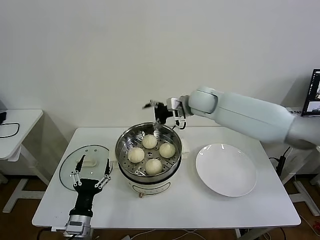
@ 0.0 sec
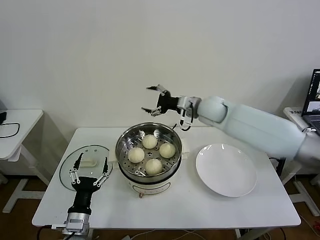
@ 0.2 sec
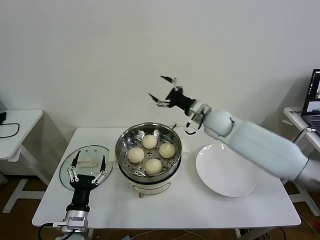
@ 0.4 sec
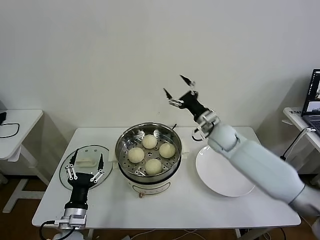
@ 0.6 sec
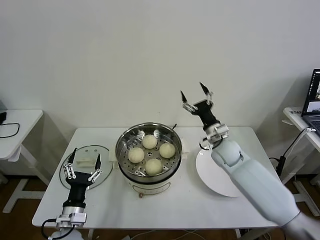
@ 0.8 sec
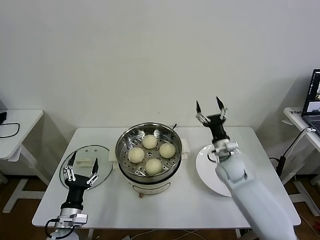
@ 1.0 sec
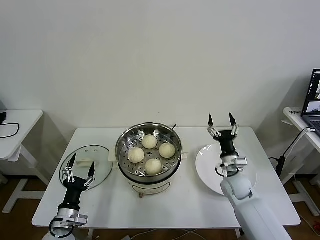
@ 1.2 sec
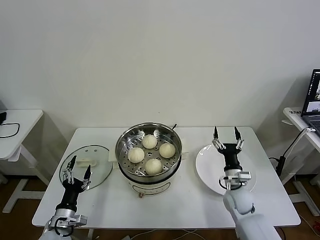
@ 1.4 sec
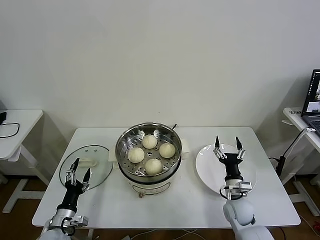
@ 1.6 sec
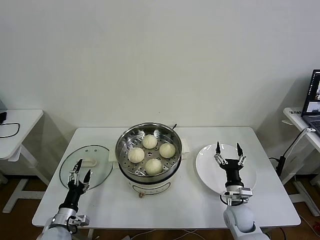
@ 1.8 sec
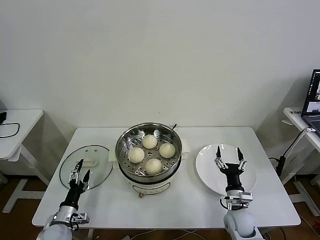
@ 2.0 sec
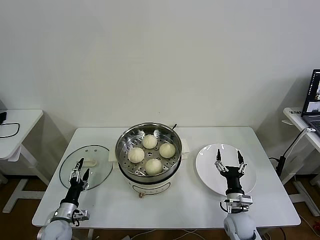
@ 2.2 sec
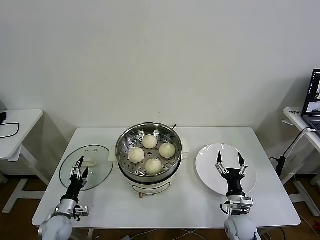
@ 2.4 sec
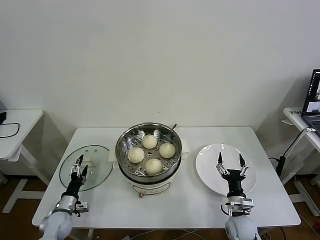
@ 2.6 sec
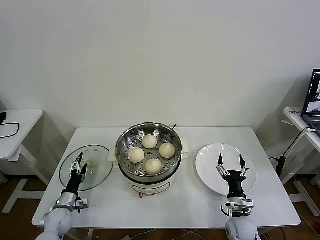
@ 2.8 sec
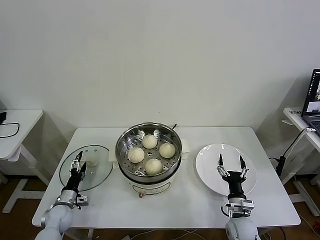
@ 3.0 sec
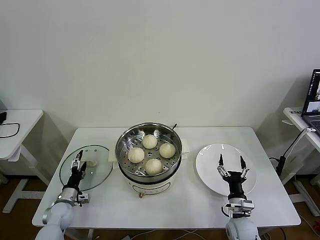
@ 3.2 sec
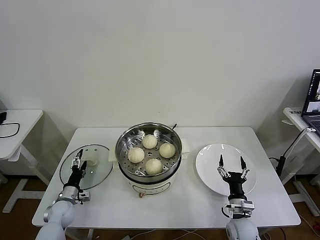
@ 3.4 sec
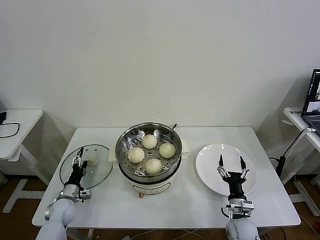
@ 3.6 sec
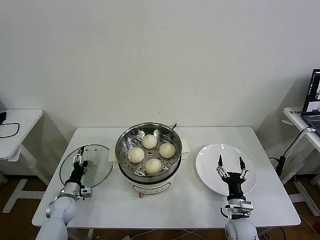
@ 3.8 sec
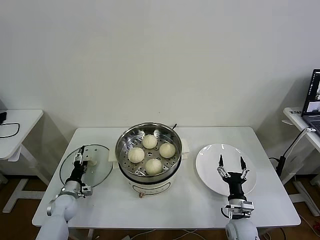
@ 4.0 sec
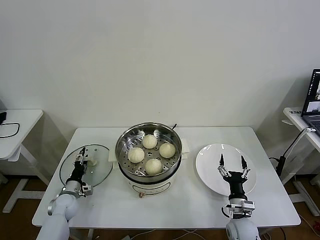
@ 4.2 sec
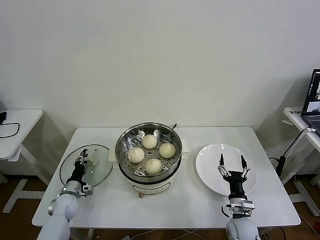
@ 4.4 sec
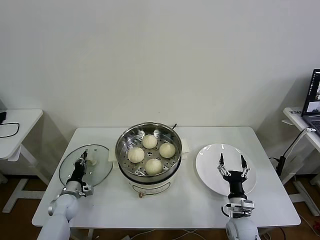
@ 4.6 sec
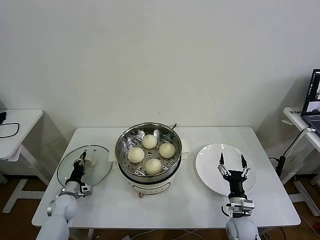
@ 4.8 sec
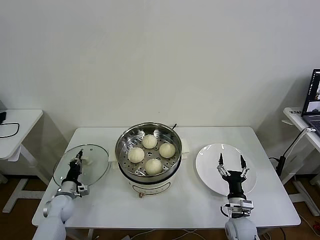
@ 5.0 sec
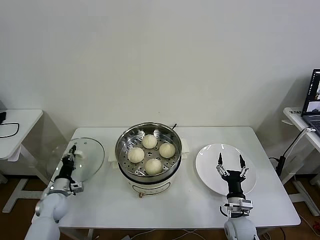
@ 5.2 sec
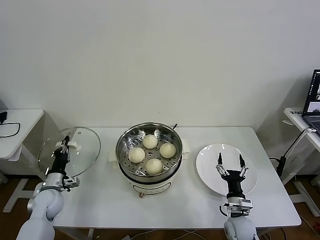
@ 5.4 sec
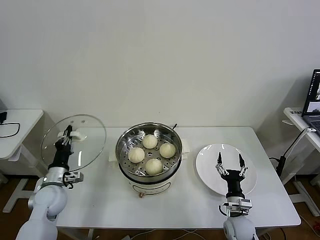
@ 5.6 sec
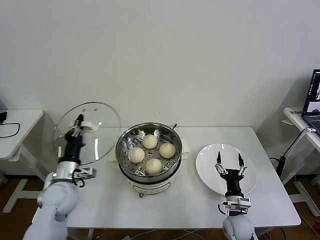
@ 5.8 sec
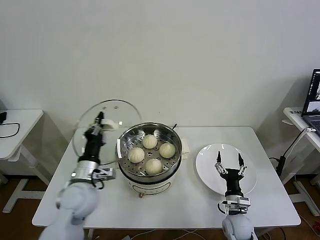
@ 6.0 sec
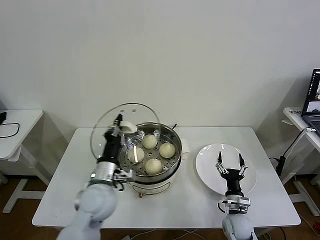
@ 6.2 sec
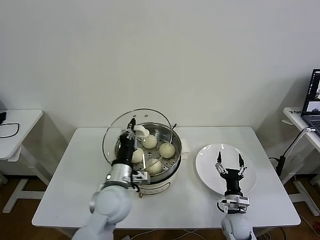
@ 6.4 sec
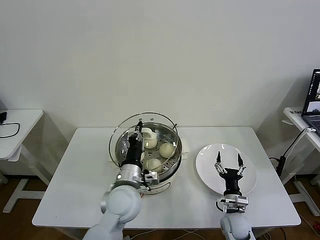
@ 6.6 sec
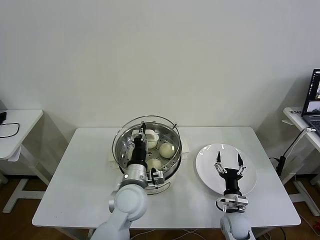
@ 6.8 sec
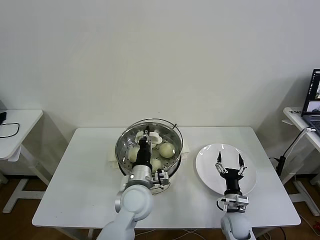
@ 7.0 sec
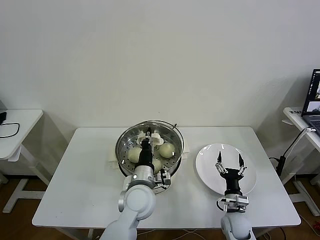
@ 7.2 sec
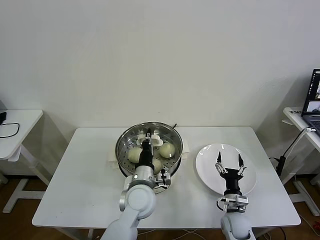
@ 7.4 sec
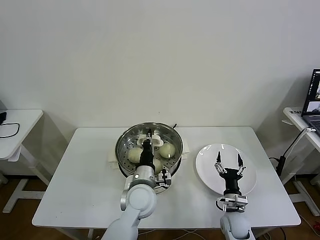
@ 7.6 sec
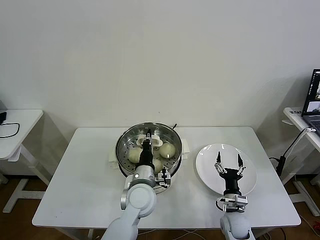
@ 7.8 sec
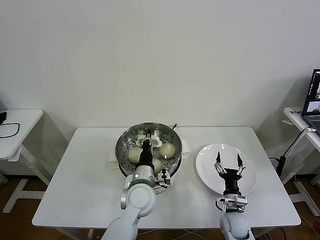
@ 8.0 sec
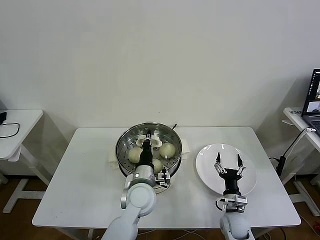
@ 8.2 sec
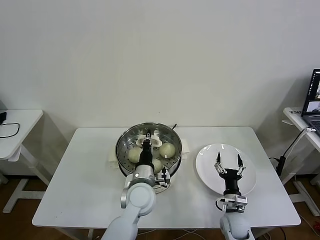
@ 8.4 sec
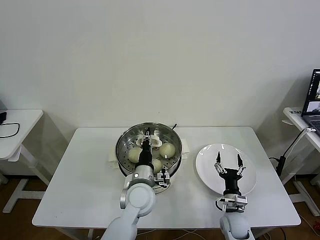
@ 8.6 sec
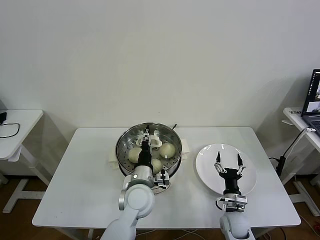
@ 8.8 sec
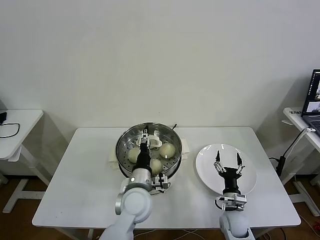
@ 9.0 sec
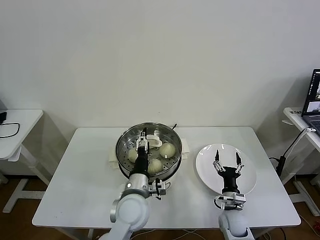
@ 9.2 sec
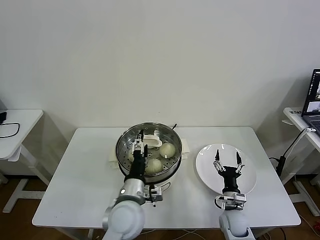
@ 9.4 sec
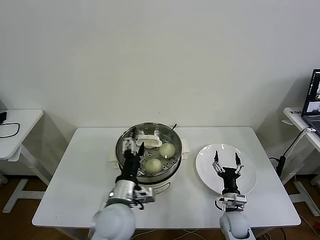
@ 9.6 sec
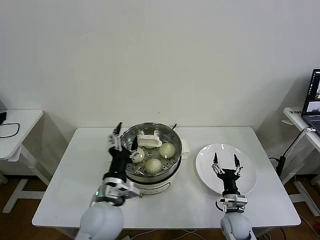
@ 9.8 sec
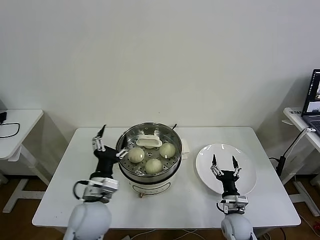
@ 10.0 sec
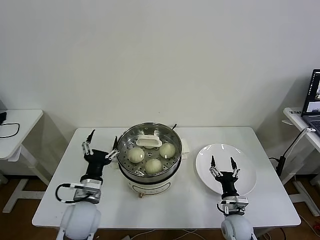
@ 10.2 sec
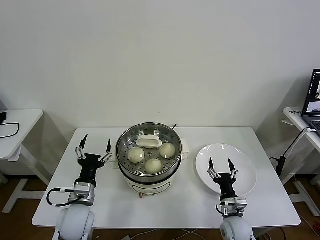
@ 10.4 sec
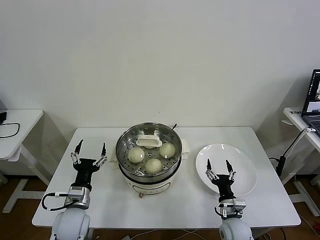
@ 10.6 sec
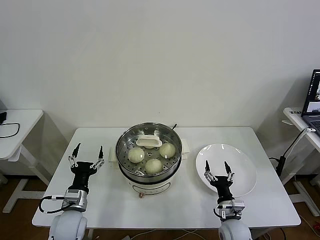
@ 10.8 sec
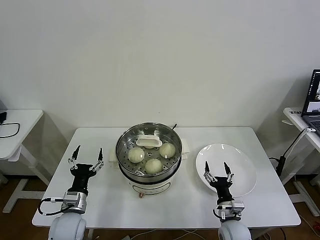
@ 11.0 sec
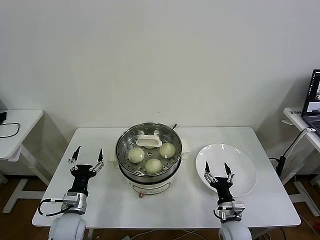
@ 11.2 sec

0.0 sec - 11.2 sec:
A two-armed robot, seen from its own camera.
Task of the whole recording: take steamed baozi put them in steamer then cover it.
Step, 0.0 sec - 5.0 sec: Grasp the pot lid with left gripper.
Step, 5.2 sec - 9.2 sec: Place the pot lid on the steamer with left gripper.
0.0 sec - 1.6 sec: The left gripper goes approximately 10 cm to the left and downward. The right gripper shifts about 40 cm downward, backward and to the right.
1.6 sec - 3.2 sec: The left gripper moves forward, downward and to the left, some 15 cm, while the right gripper moves backward, about 5 cm.
3.2 sec - 4.8 sec: The left gripper closes.
4.8 sec - 6.4 sec: The left gripper shifts roughly 35 cm to the right and upward.
6.4 sec - 8.0 sec: The left gripper moves to the right and downward, some 10 cm.
8.0 sec - 9.6 sec: The left gripper shifts some 5 cm backward, and opens its fingers.
9.6 sec - 11.2 sec: The left gripper travels to the left and downward by about 20 cm.
